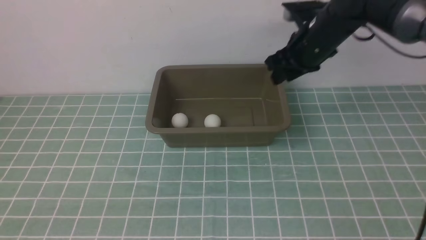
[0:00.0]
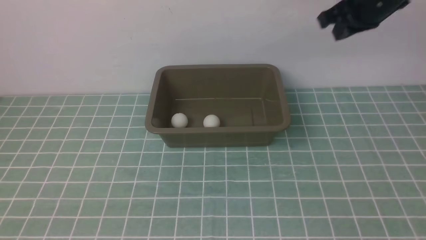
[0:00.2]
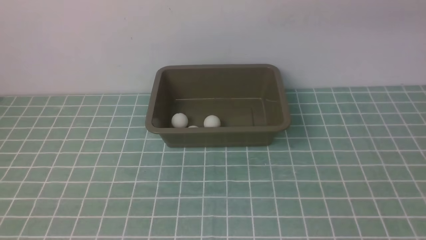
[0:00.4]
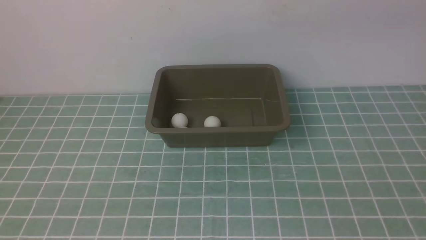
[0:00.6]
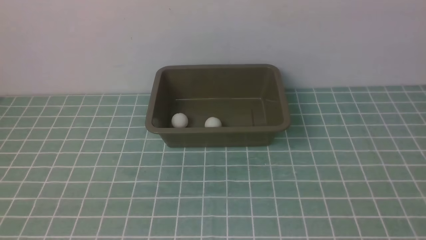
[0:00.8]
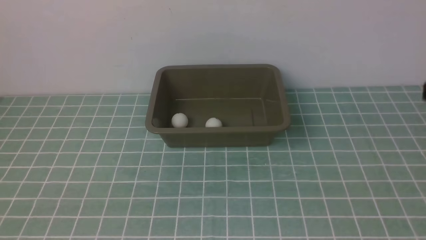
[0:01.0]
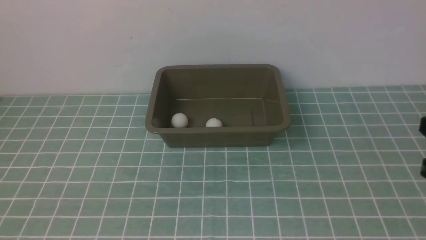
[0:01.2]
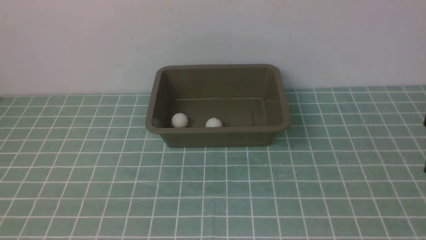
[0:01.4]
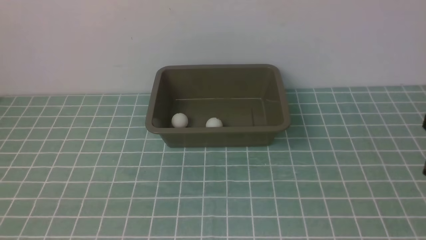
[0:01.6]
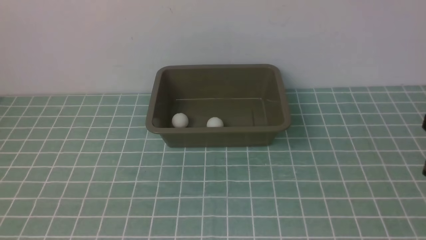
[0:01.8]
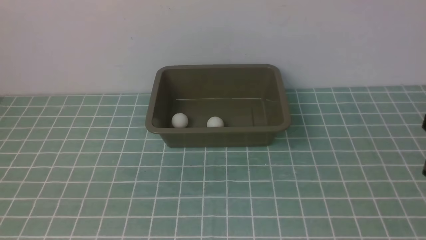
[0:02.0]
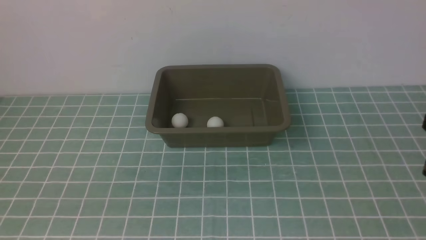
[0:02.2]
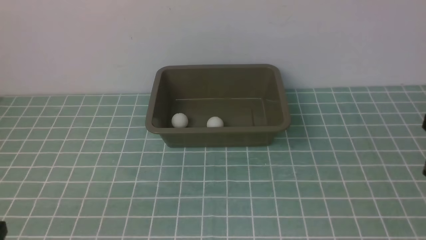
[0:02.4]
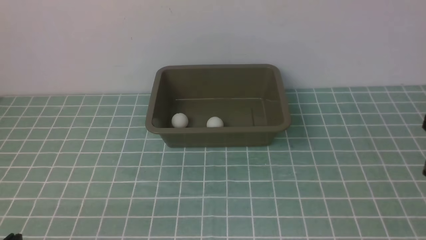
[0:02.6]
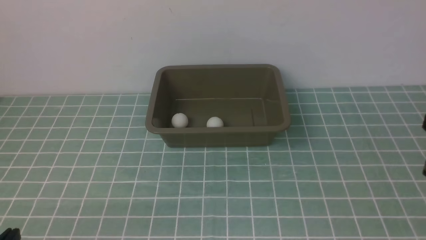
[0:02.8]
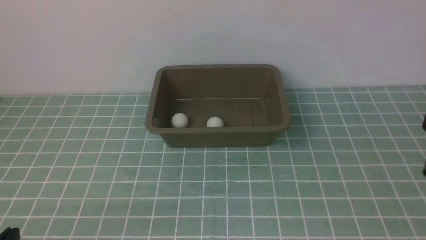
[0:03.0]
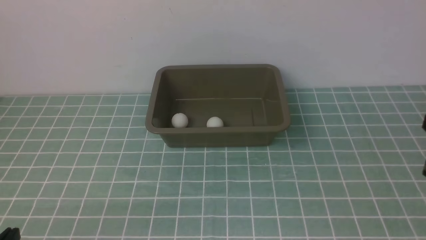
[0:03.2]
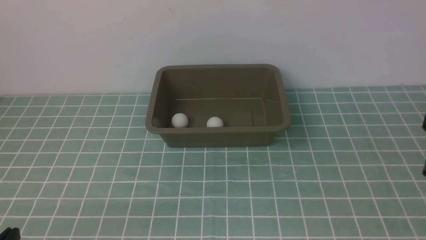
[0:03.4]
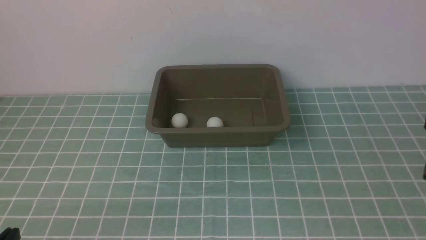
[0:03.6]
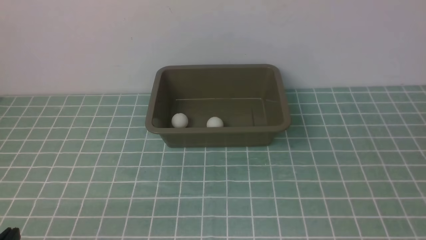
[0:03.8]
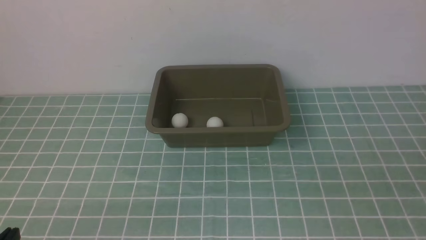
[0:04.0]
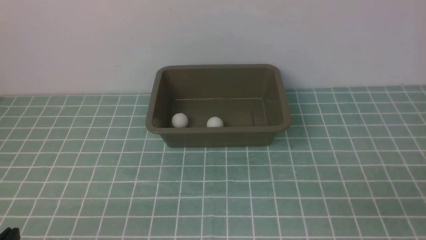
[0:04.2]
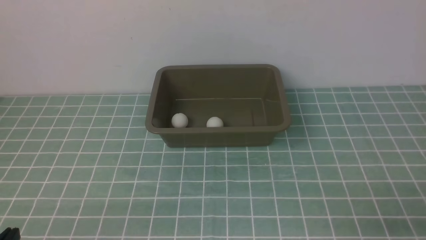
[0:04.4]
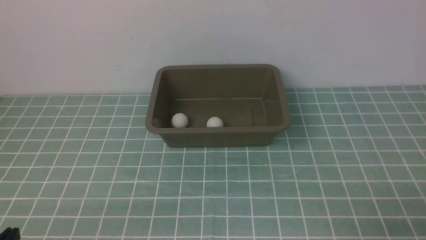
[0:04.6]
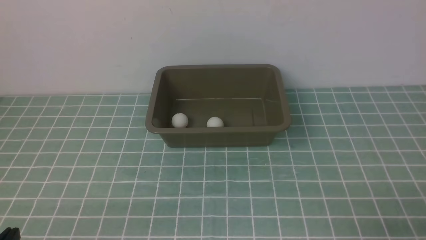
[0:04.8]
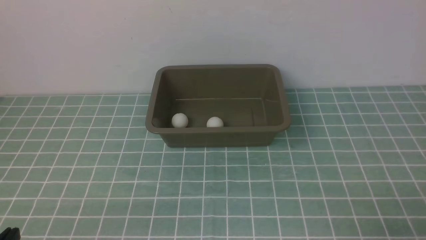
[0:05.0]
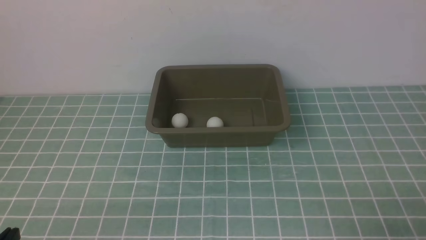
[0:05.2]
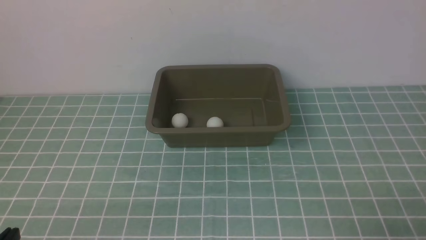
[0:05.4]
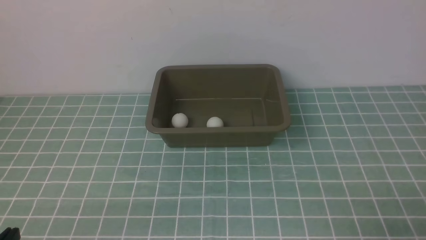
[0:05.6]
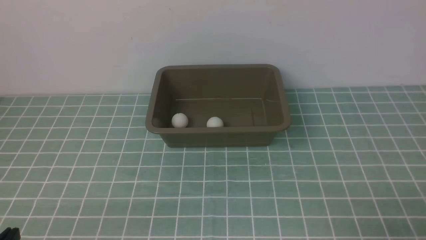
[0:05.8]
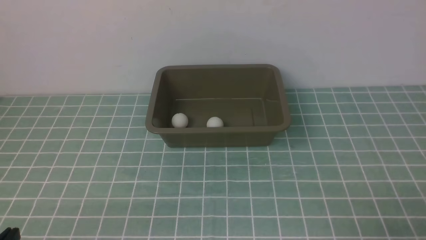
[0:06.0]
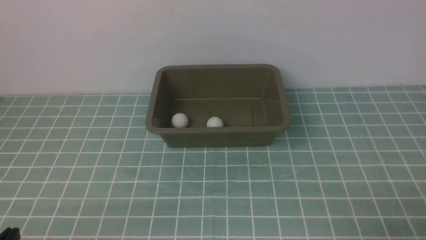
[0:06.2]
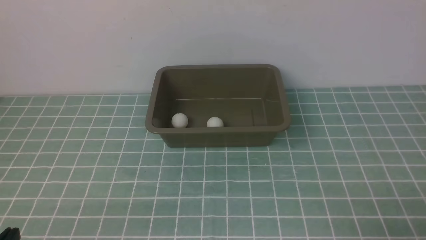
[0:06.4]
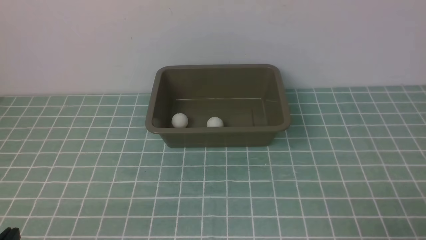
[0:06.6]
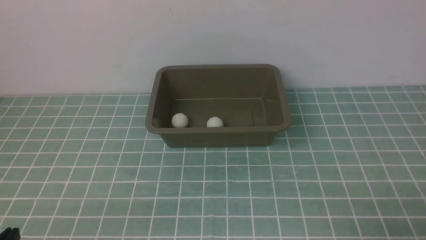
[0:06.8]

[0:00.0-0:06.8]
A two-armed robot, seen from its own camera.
0:00.0 to 0:01.4: The right gripper shifts roughly 30 cm backward, and closes.
0:05.4 to 0:06.8: Neither gripper changes place.

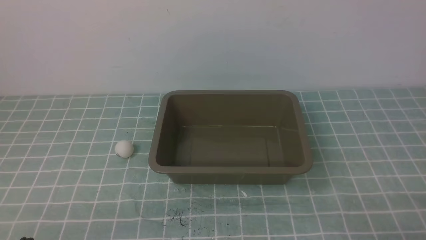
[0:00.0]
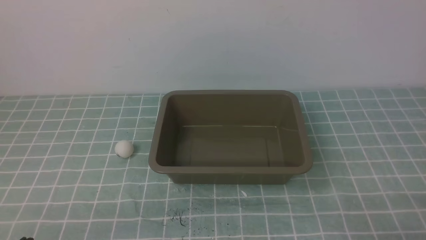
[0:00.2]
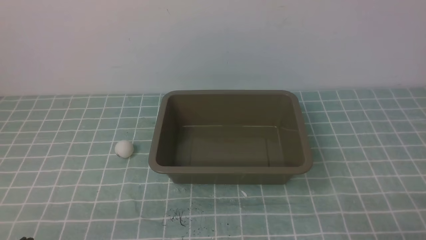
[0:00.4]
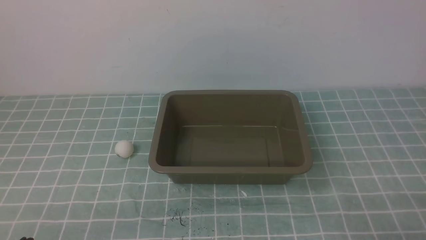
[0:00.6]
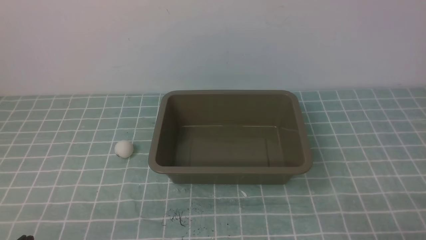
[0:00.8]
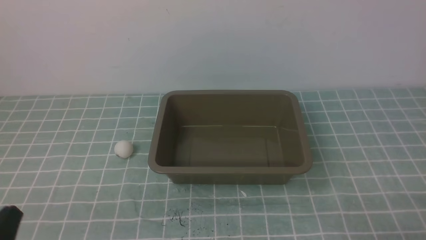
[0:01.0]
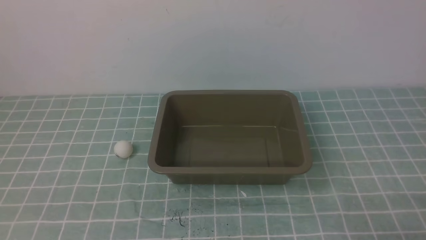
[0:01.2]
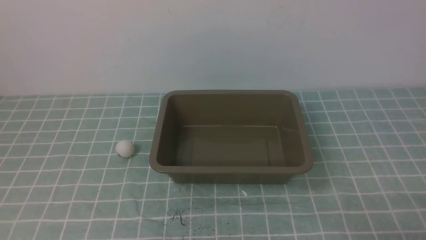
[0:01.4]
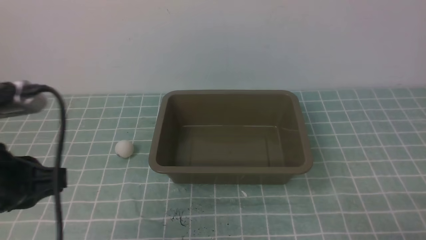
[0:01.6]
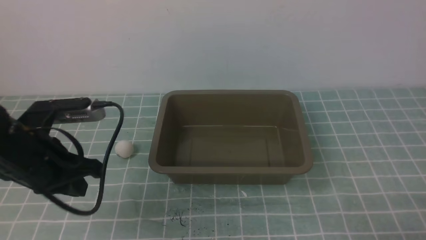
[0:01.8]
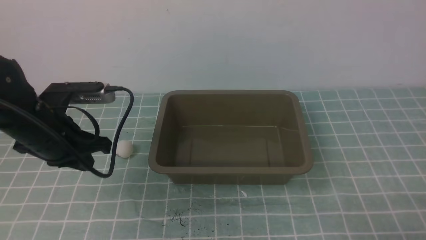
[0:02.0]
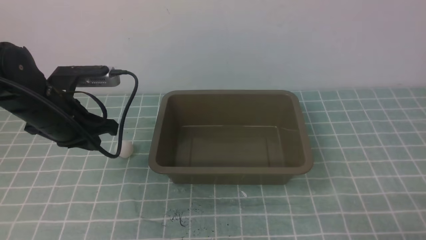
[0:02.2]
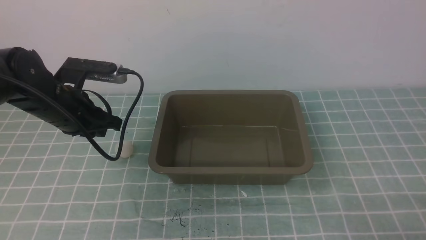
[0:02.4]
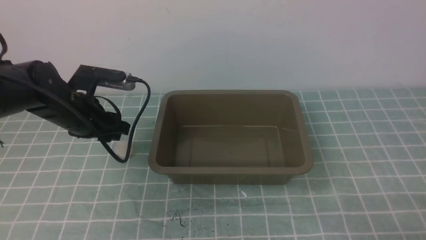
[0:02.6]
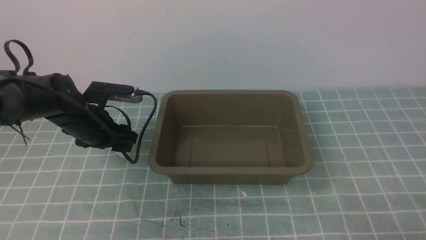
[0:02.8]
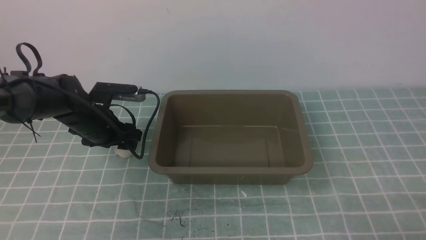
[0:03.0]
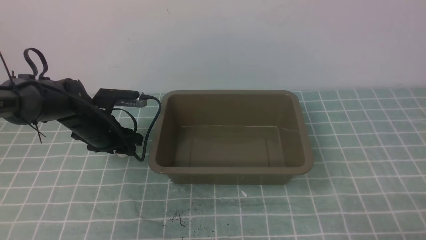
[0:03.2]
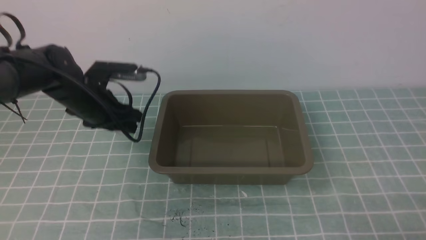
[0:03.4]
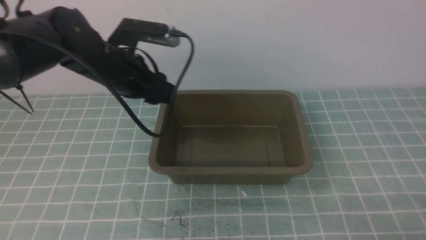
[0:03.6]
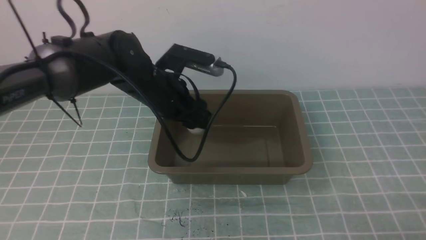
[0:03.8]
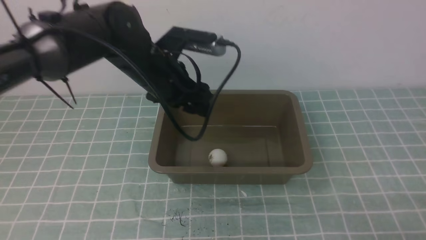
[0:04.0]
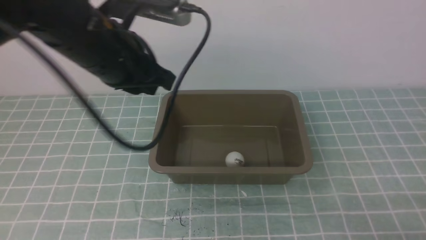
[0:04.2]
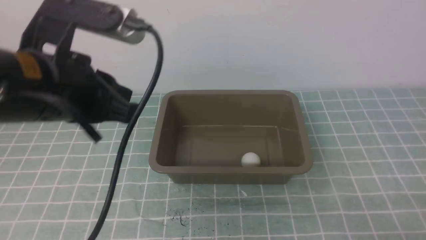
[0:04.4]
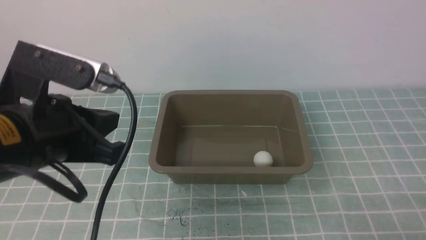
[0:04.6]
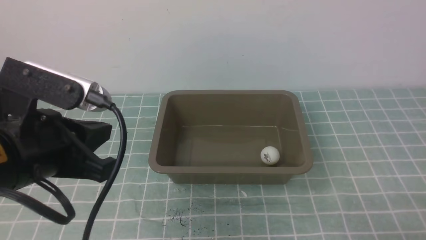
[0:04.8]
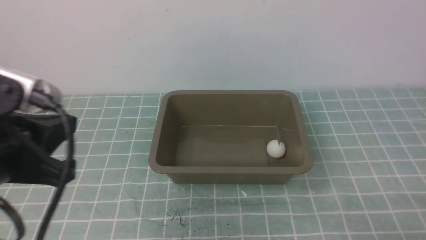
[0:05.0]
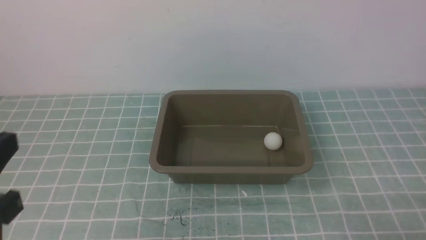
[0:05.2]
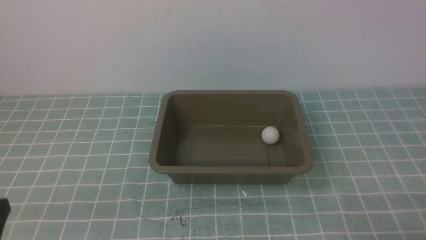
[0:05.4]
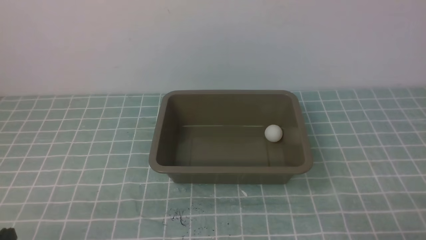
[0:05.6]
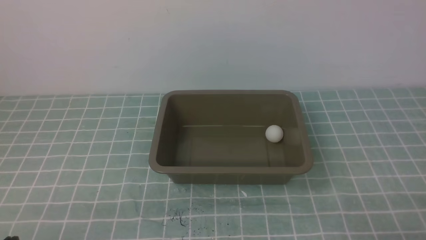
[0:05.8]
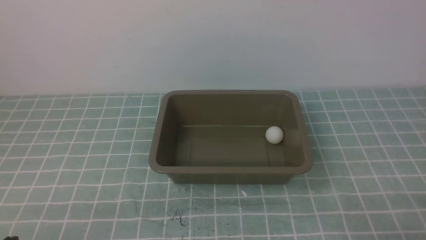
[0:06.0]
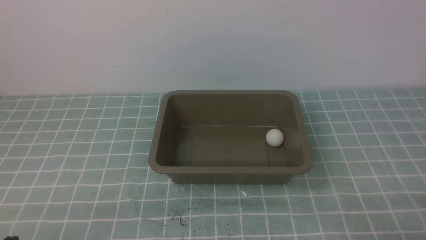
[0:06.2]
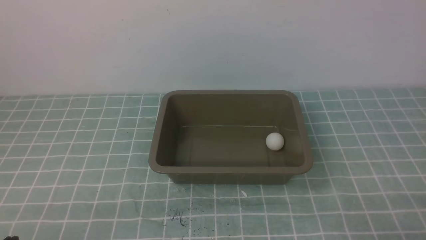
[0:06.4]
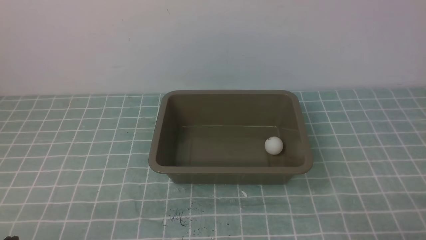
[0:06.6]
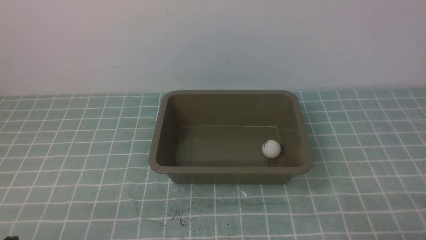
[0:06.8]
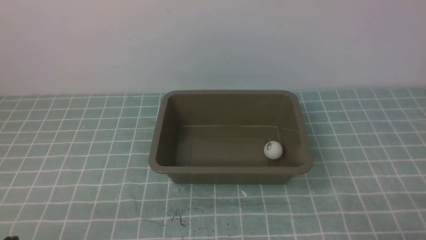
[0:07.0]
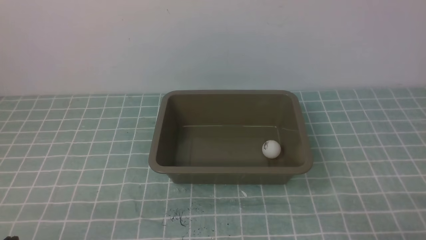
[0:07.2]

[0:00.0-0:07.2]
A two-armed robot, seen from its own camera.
Step, 0:00.0 to 0:03.4: use the left arm to clamp the table tennis ball closest to it.
Step, 0:03.6 to 0:04.0: use the left arm to put the table tennis ball into the box.
0:01.4 to 0:02.8: The left gripper heads forward and downward, covering some 30 cm, and opens its fingers.
0:02.8 to 0:04.4: The left gripper is displaced upward and backward by about 25 cm, and closes its fingers.
0:04.4 to 0:05.8: The left gripper shifts approximately 25 cm downward, backward and to the left.
0:05.8 to 0:07.2: Both grippers stay about where they are.
